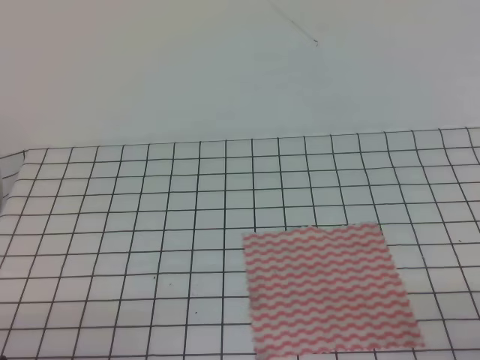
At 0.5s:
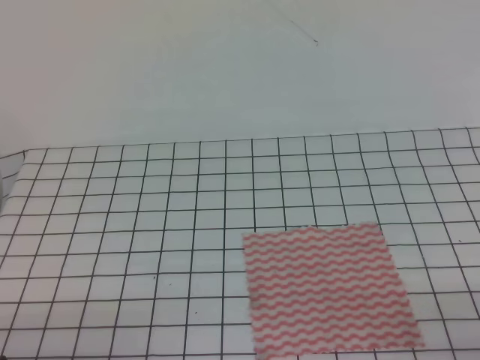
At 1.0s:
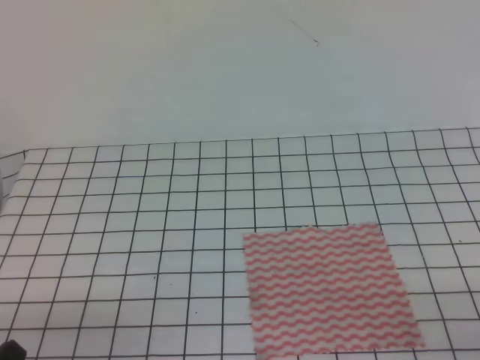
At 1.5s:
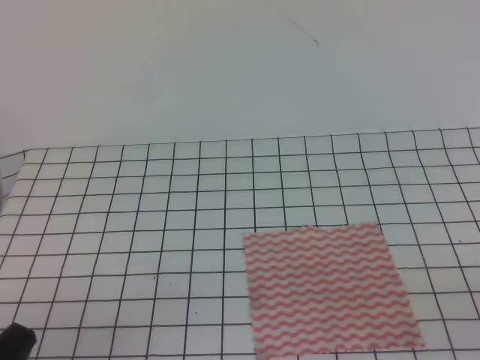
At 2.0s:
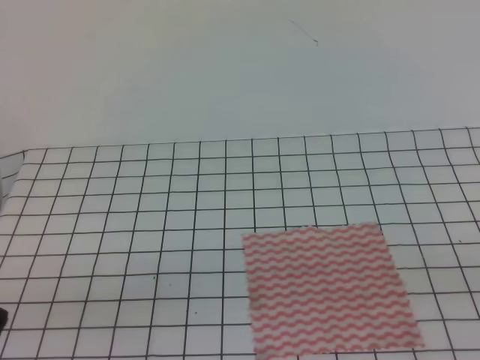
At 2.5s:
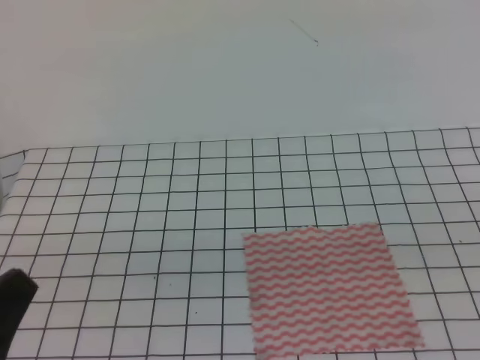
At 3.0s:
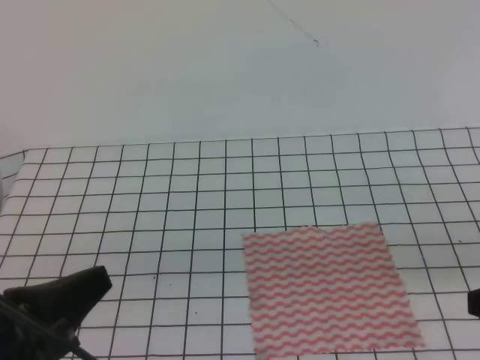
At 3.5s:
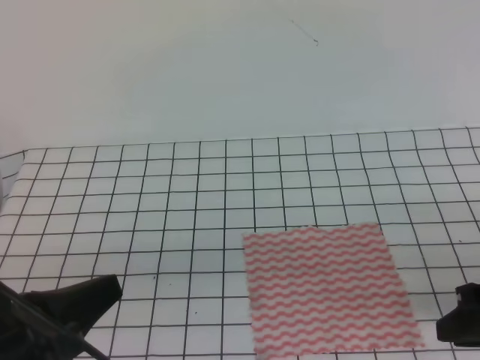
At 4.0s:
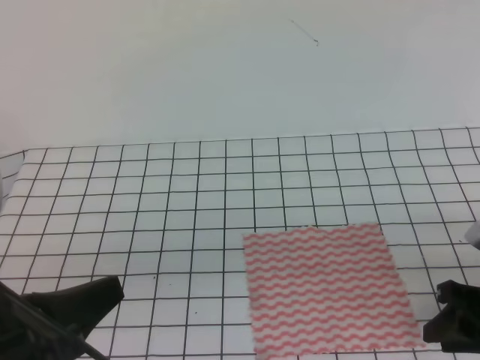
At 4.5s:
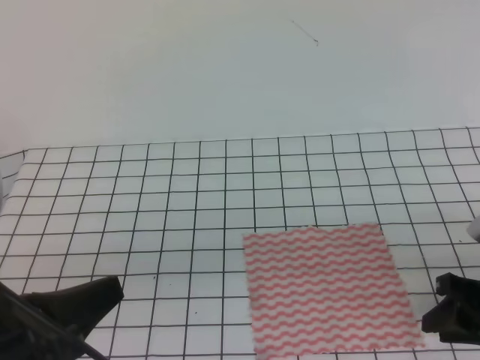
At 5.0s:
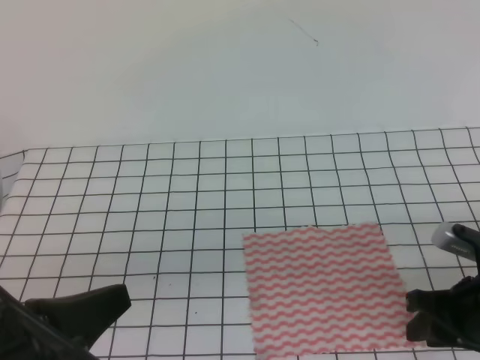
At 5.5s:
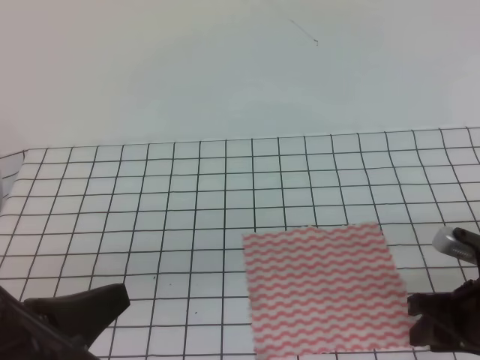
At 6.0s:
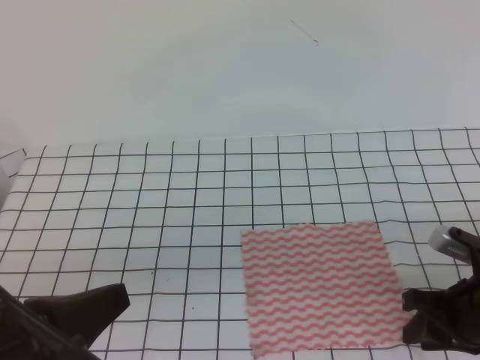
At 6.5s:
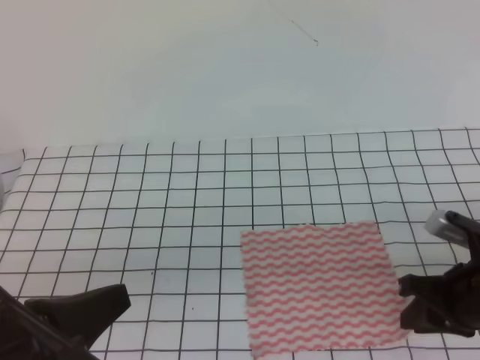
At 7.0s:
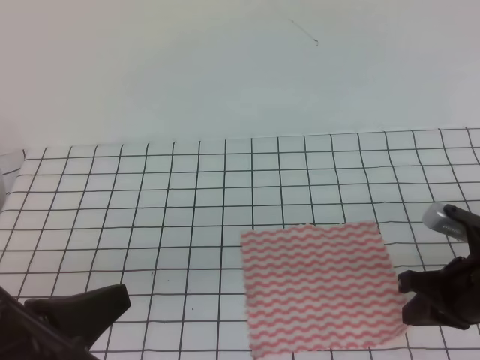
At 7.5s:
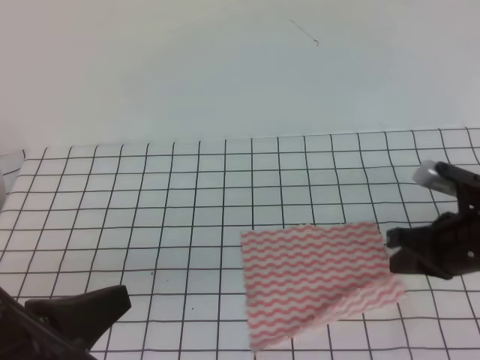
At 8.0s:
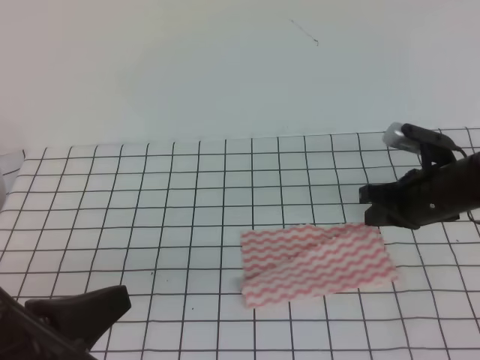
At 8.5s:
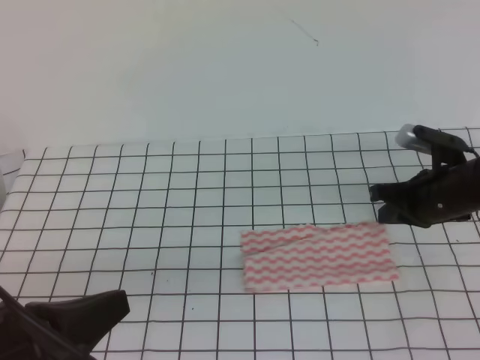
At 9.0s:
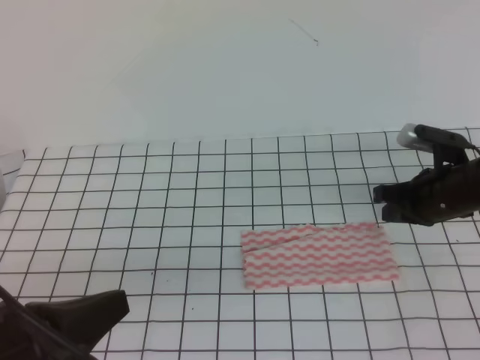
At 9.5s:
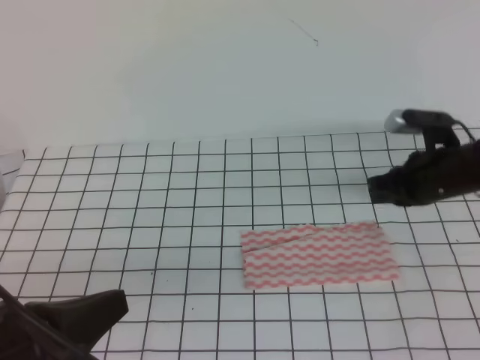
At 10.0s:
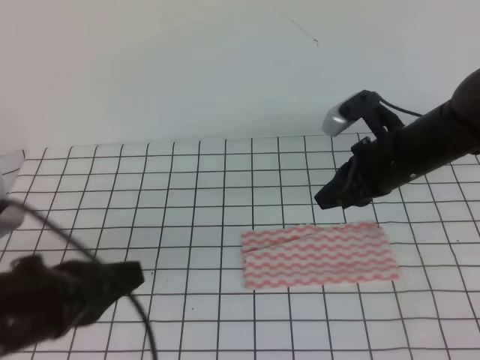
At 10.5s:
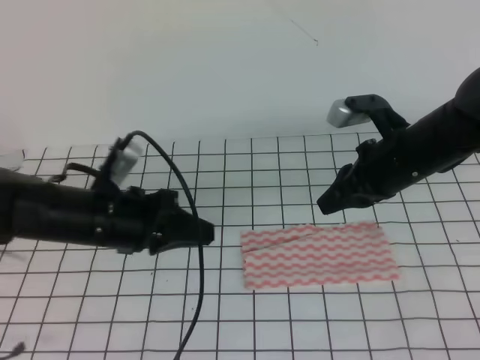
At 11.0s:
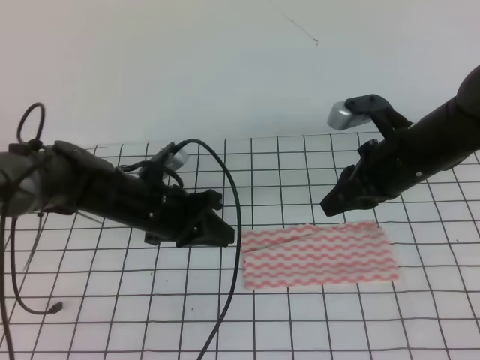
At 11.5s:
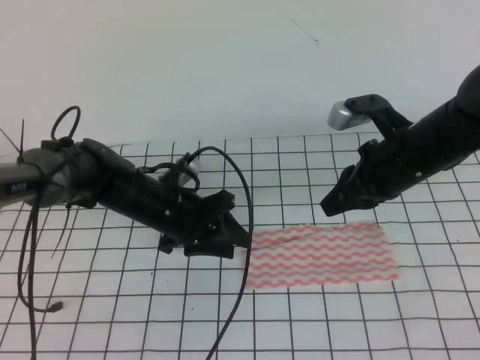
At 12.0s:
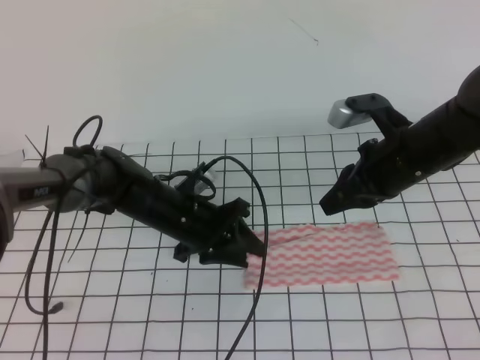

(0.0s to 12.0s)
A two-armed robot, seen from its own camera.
2.0s - 4.0s: The right gripper is displaced forward and downward by some 20 cm, and opens. The left gripper moves forward, approximately 5 cm.
4.0s - 6.0s: The grippers move only a little.
6.0s - 8.0s: The right gripper is displaced forward by roughly 10 cm, and closes.
8.0s - 10.0s: The right gripper goes roughly 5 cm upward.
10.0s - 12.0s: The left gripper moves forward, downward and to the right, some 25 cm, and opens its fingers.

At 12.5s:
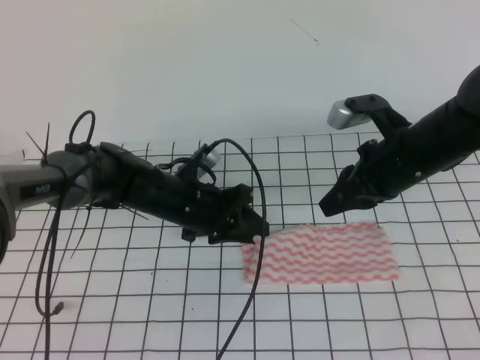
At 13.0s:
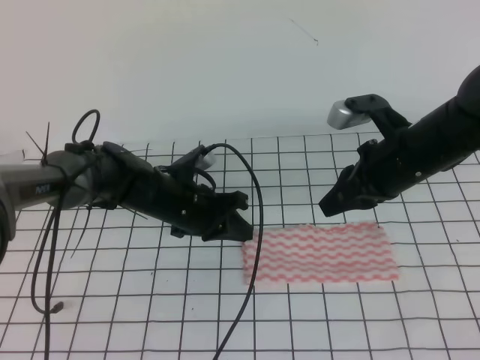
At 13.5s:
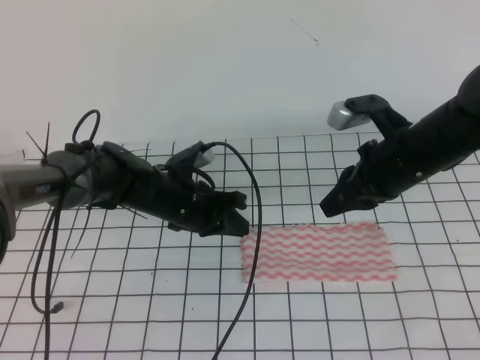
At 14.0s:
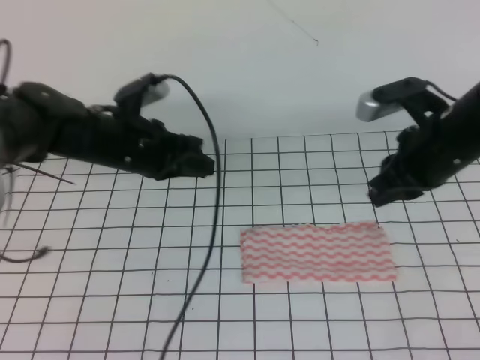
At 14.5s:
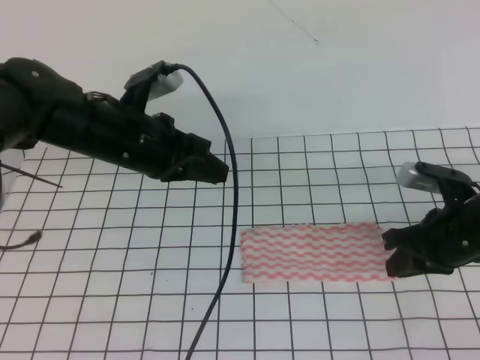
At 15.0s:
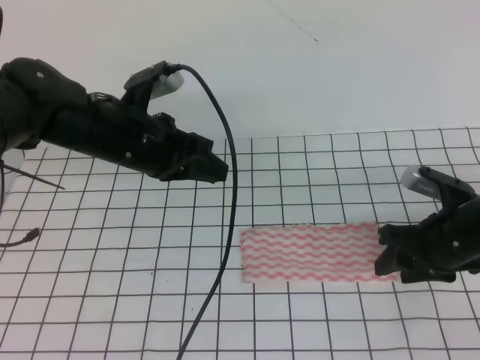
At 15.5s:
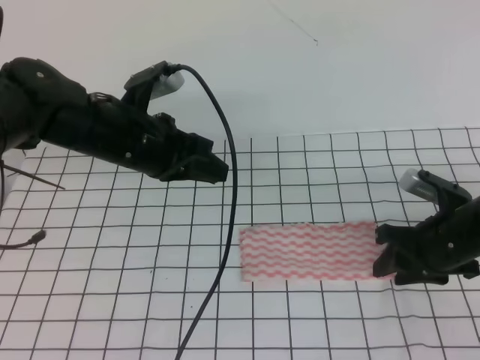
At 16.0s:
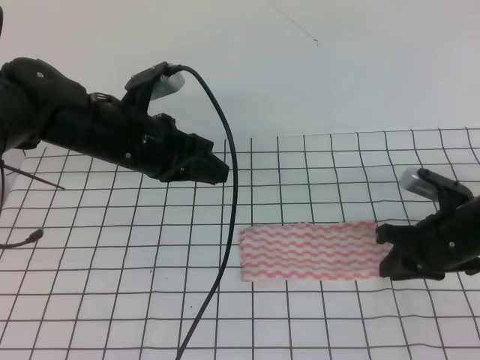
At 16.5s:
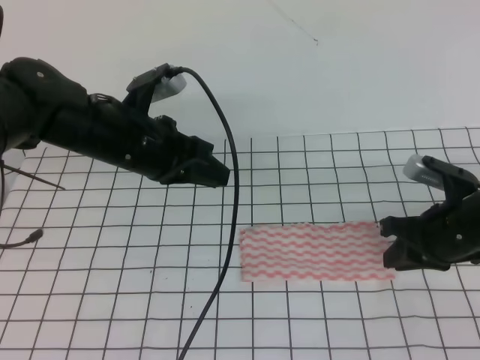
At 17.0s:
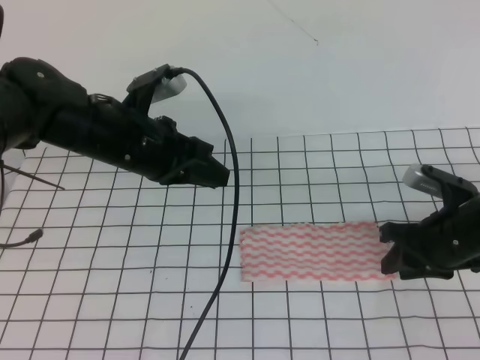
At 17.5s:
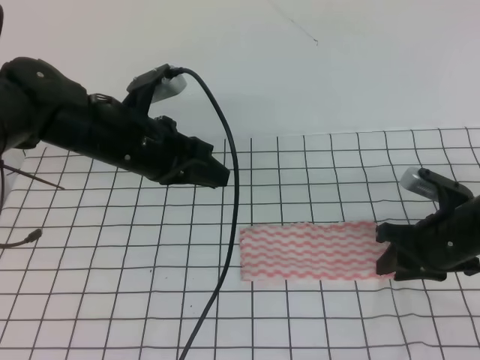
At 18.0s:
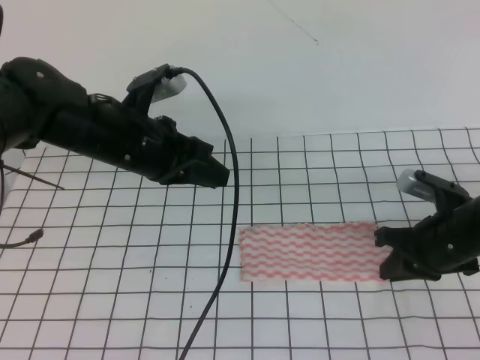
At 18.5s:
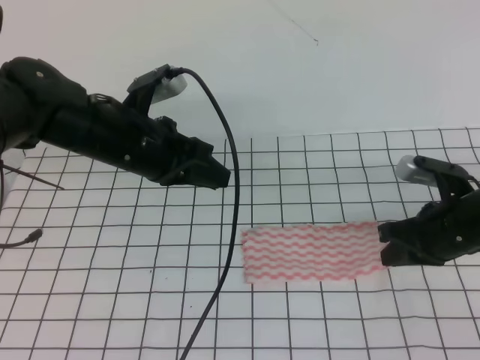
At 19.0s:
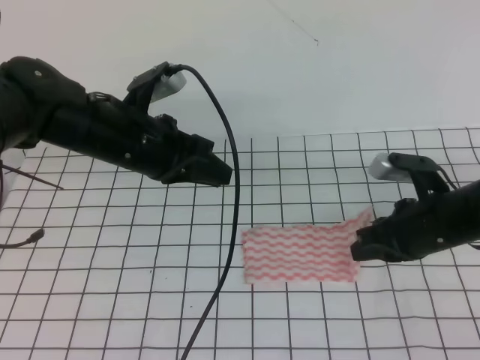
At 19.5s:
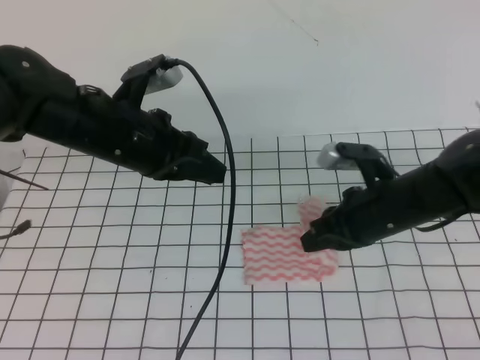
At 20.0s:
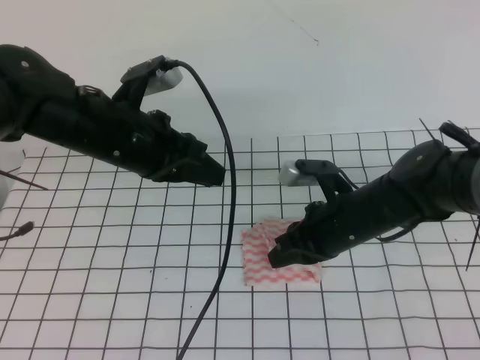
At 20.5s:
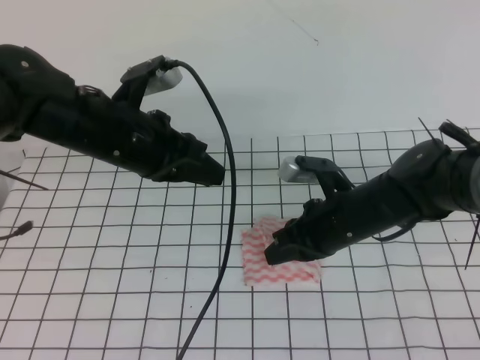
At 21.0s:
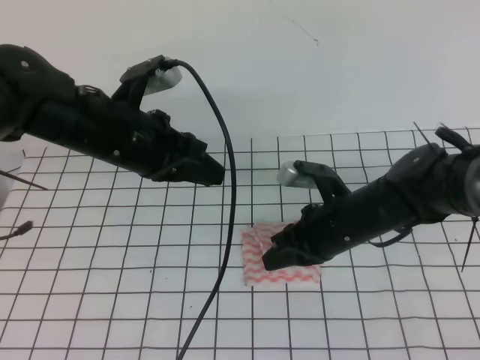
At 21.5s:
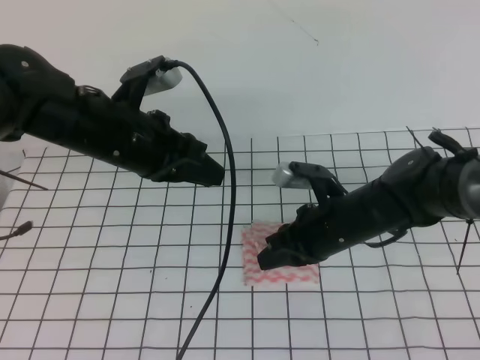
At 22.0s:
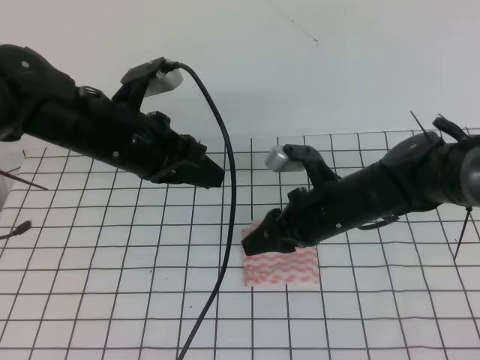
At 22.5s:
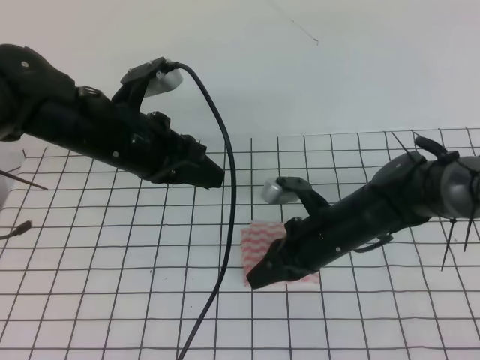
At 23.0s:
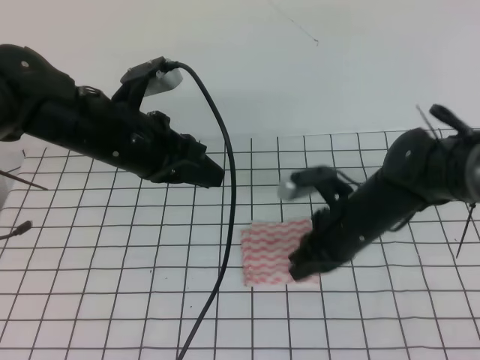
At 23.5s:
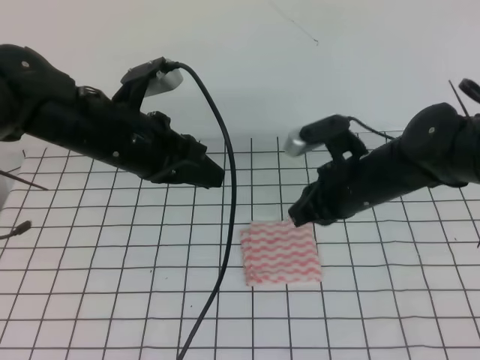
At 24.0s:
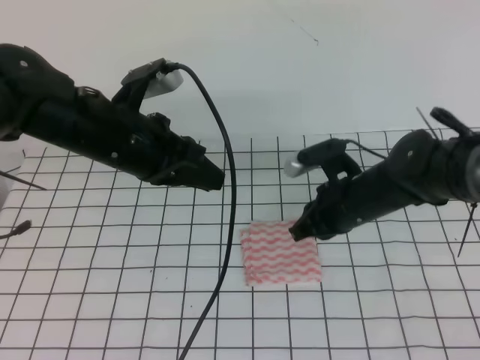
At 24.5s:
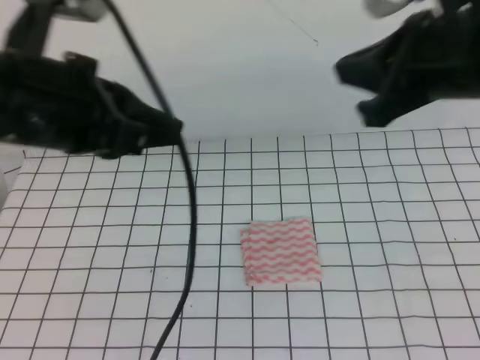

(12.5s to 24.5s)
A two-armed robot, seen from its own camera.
12.5s - 14.5s: The right gripper heads to the right and downward, covering roughly 10 cm; the left gripper moves upward, about 15 cm, and closes.
14.5s - 16.5s: The right gripper opens and closes again.
16.5s - 18.5s: The right gripper closes.
18.5s - 20.5s: The right gripper travels to the left by roughly 10 cm.
20.5s - 22.5s: The right gripper opens, then closes once more.
22.5s - 24.5s: The left gripper heads upward and backward, covering roughly 15 cm, and closes, while the right gripper moves upward, some 25 cm.

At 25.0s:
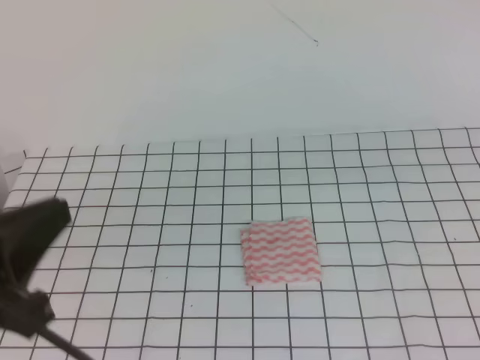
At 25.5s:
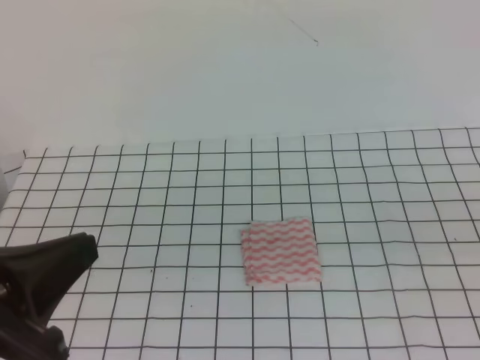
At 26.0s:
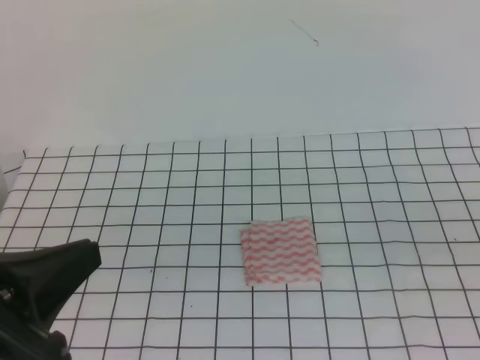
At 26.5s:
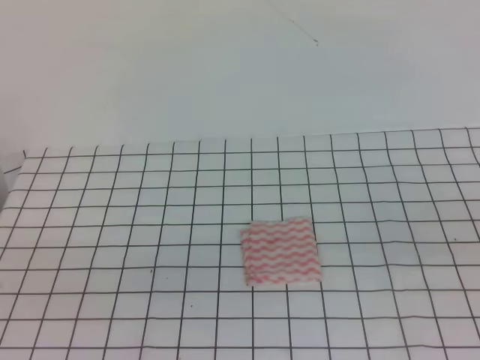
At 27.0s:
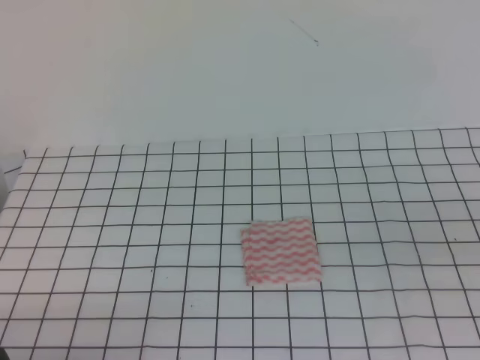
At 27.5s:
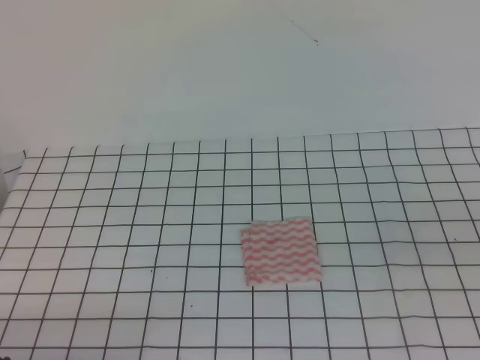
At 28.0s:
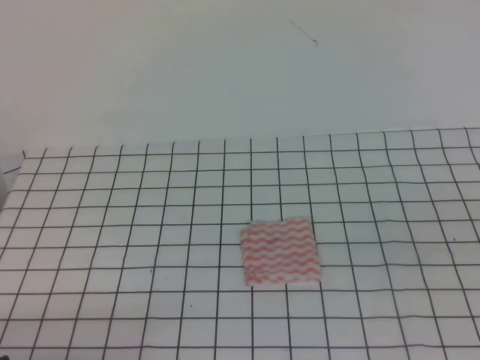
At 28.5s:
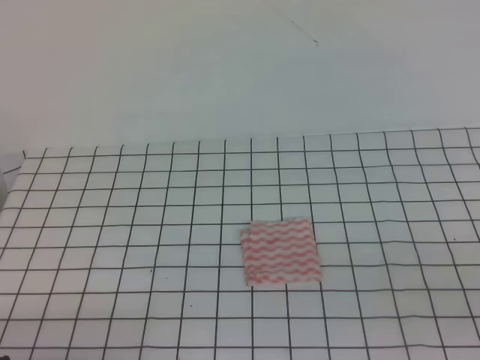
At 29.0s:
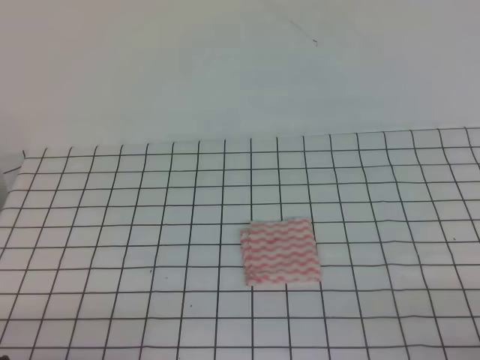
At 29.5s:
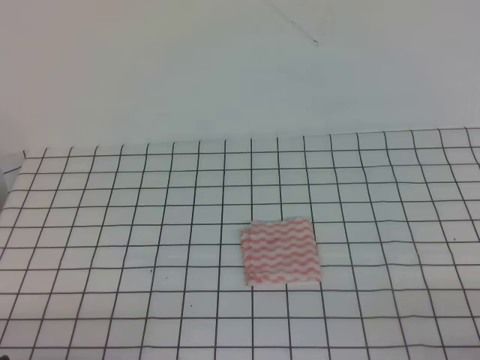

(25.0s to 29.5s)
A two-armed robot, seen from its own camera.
25.0s - 27.0s: The right gripper is displaced downward by about 10 cm. The left gripper shifts approximately 15 cm downward.
27.0s - 29.5s: The right gripper travels downward, backward and to the right by about 15 cm.
